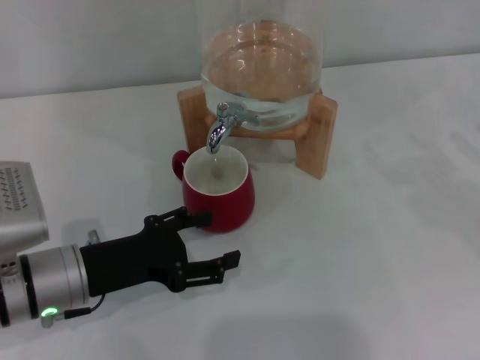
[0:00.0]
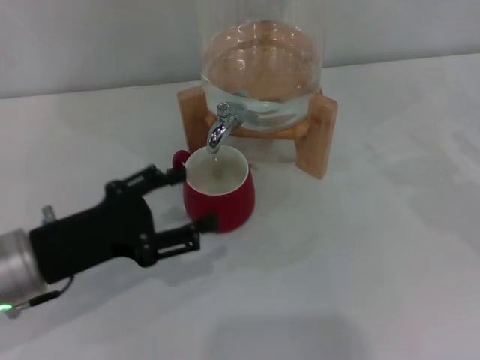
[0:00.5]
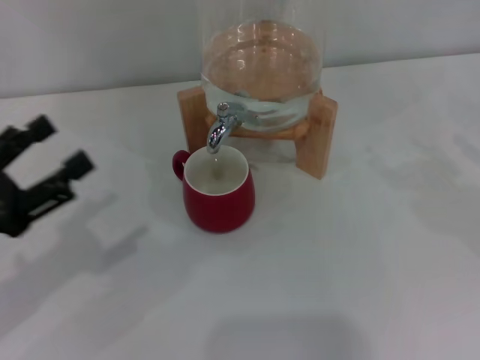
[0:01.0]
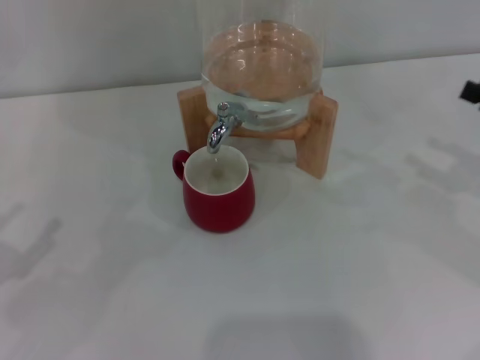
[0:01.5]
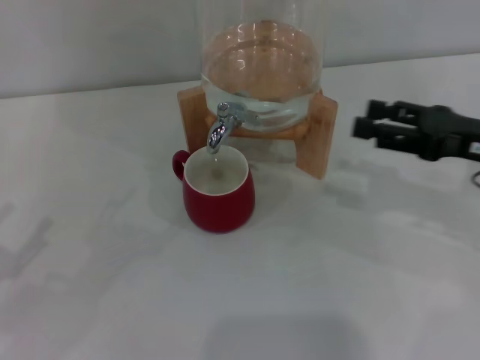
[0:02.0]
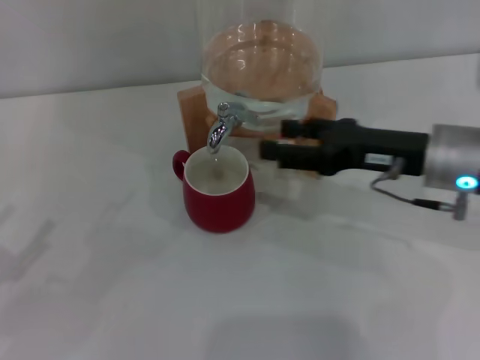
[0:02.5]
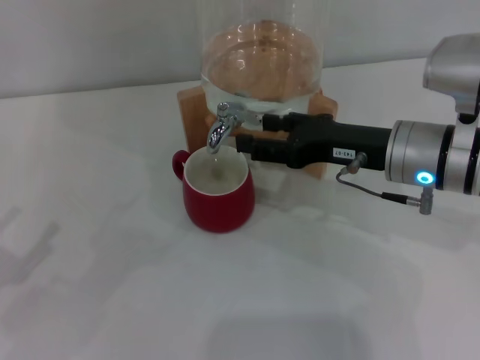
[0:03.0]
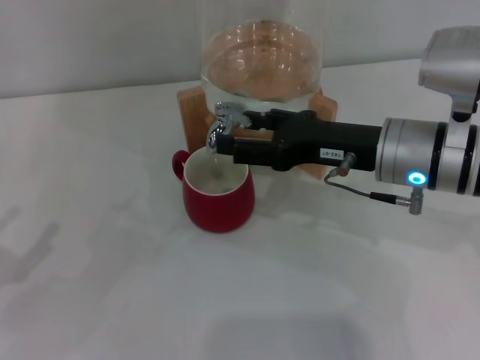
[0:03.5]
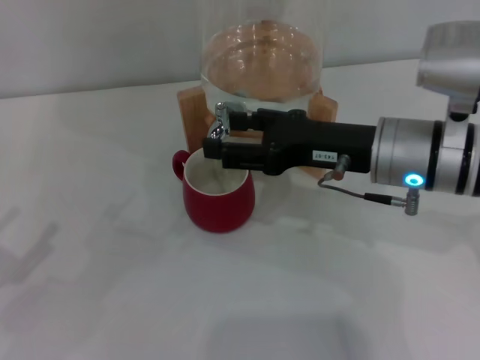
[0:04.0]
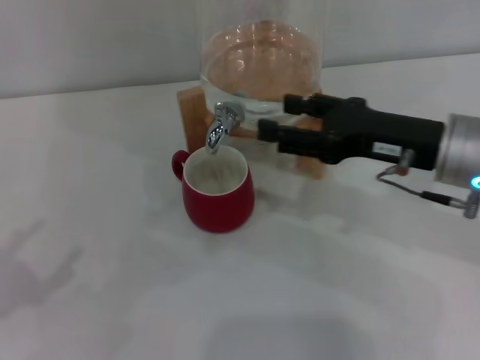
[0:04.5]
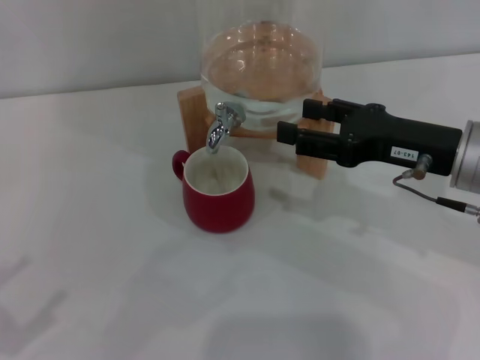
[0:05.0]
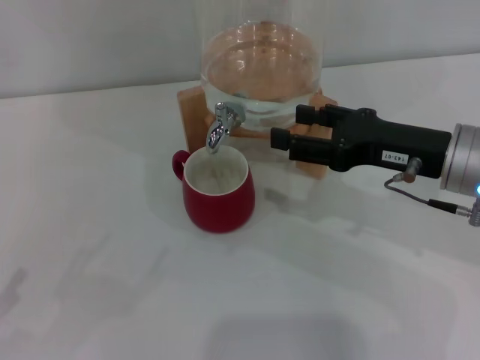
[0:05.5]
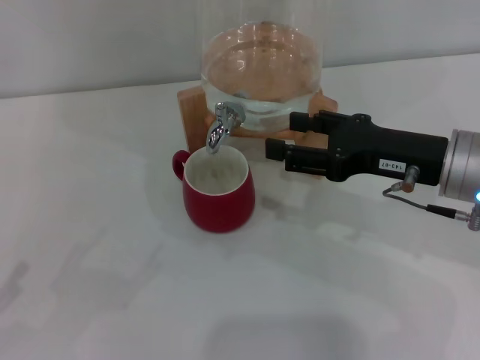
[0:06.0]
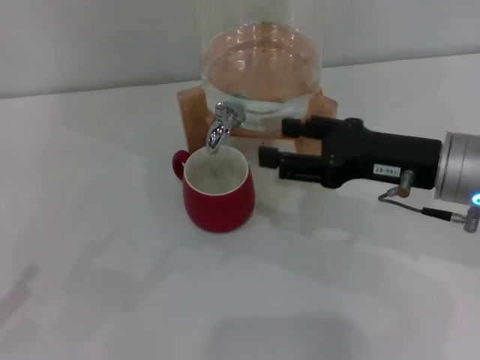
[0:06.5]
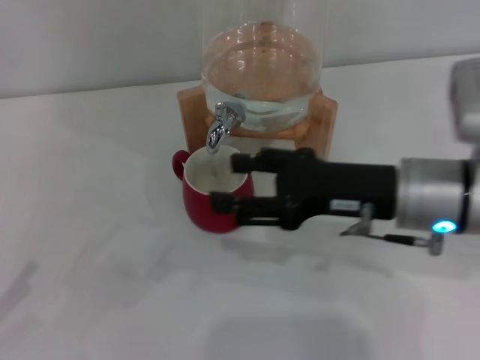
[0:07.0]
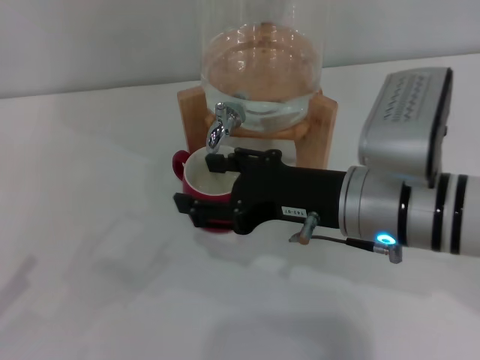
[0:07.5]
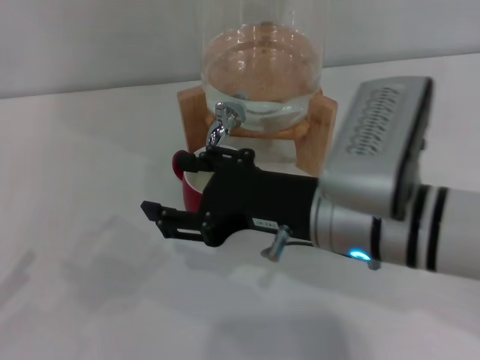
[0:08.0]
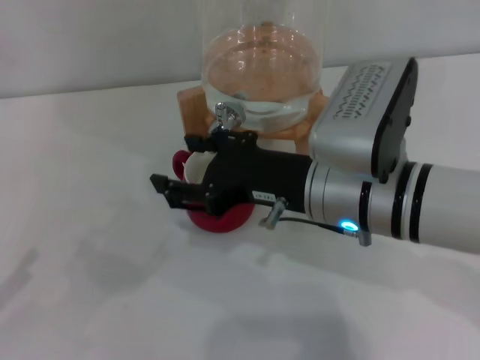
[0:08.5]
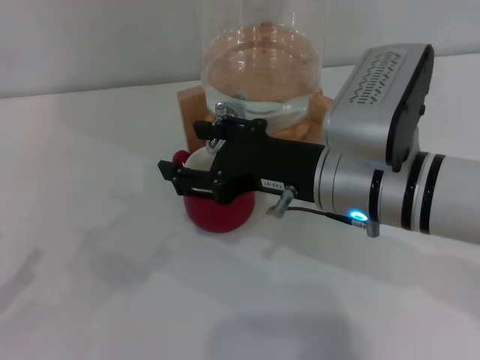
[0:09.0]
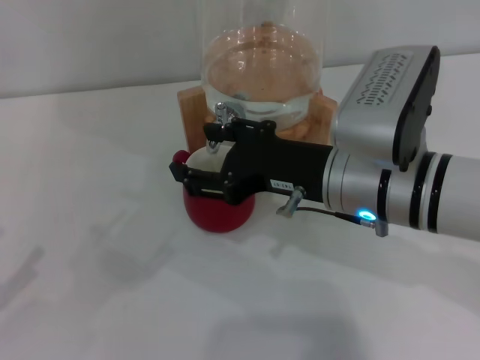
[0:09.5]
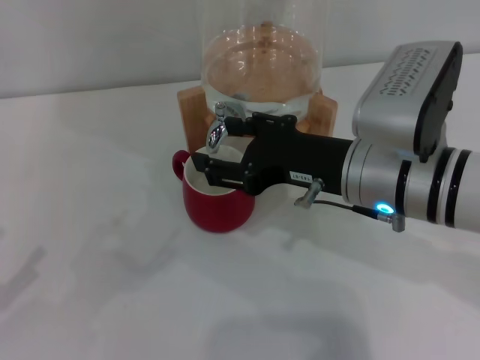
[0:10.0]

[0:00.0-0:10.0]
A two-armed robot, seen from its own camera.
Task of the whole recording: the left gripper pick up the red cup and place it horizontally under the faucet, the right gripper turn on the faucet to fill the cup, and then turn off the faucet.
Step, 0:01.0 to 0:08.0: Open the dispenser valve and fill the cup with water with the right gripper.
0:00.0 to 0:02.0: The left gripper moves to the left and backward, approximately 20 cm; the right gripper travels to the left by some 10 cm.
0:02.0 to 0:04.0: The right gripper shifts approximately 15 cm to the left.
0:04.0 to 0:06.0: The left gripper ends up about 5 cm from where it was. The right gripper is displaced to the right by approximately 5 cm.
0:06.0 to 0:08.0: The right gripper moves to the left, some 10 cm.
0:08.0 to 0:10.0: The grippers make only small movements.

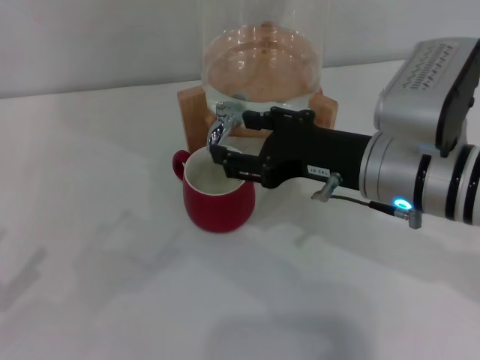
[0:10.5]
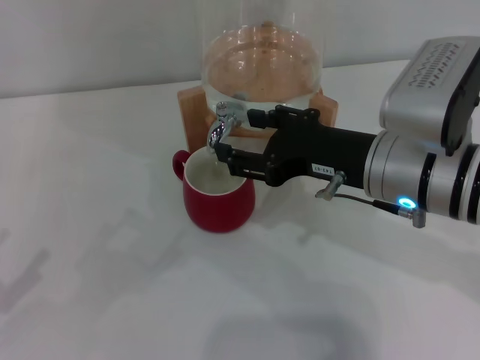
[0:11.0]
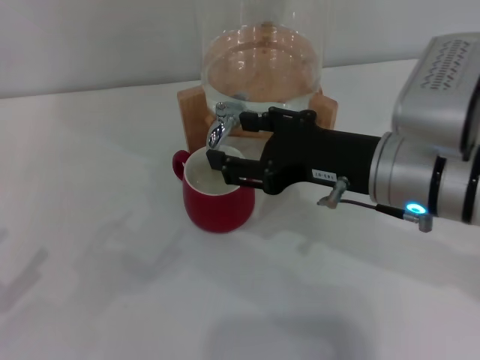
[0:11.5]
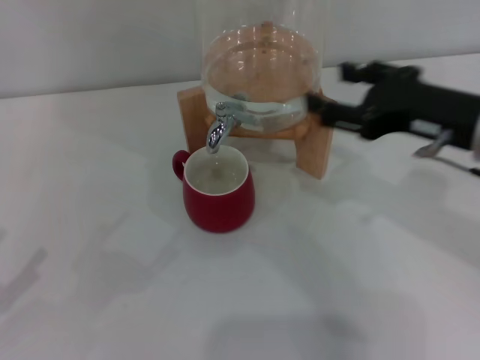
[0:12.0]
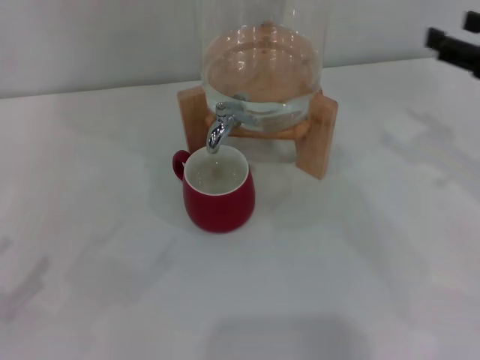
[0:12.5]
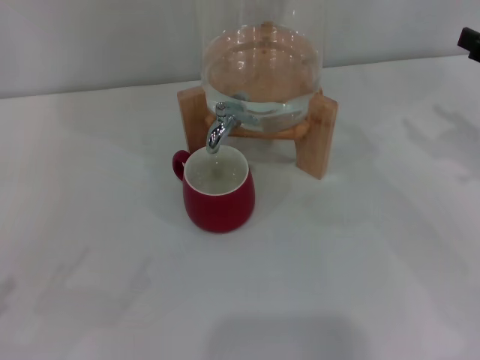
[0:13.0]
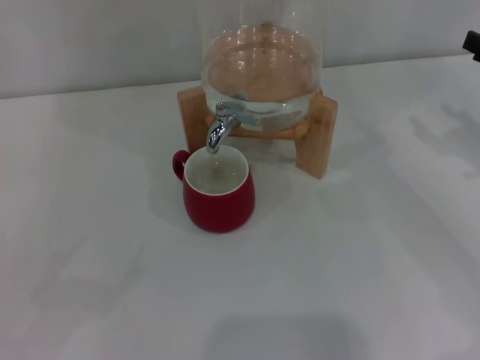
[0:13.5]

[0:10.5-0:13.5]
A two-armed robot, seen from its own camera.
Task of the whole recording: the left gripper pick up the red cup and place it horizontally under the faucet, the right gripper turn on the faucet to fill the cup, and then turn off the faucet.
0:10.5 to 0:12.0: The right gripper goes approximately 10 cm to the right.
0:12.0 to 0:13.5: The right gripper heads to the right, covering about 15 cm.
